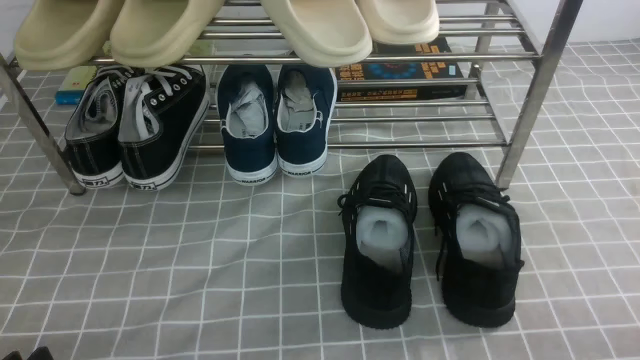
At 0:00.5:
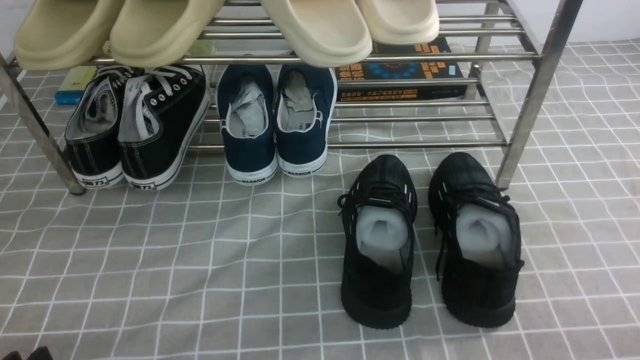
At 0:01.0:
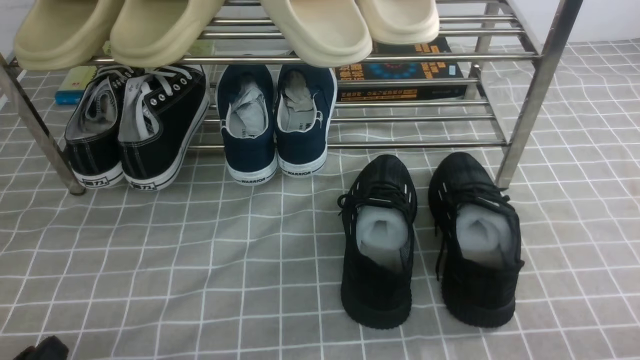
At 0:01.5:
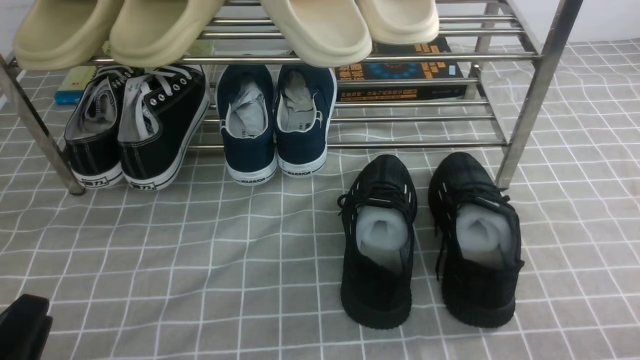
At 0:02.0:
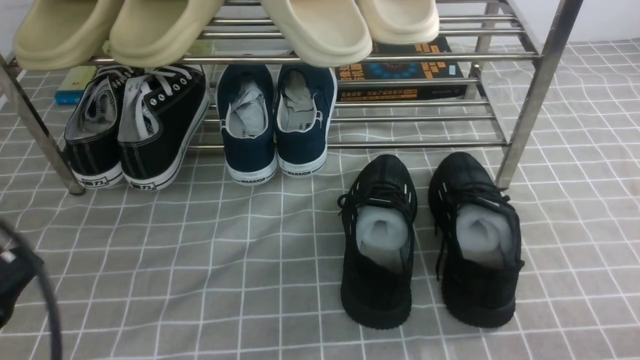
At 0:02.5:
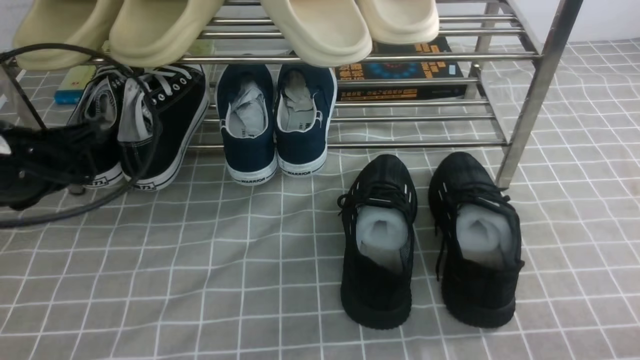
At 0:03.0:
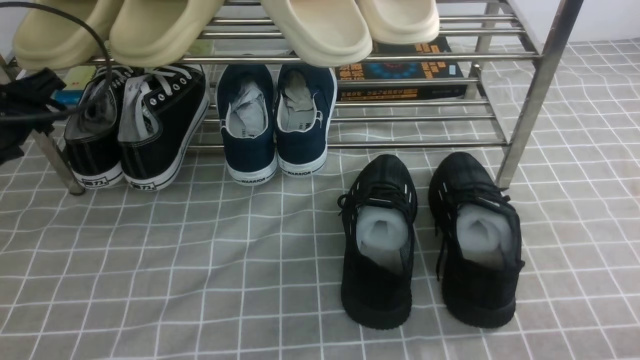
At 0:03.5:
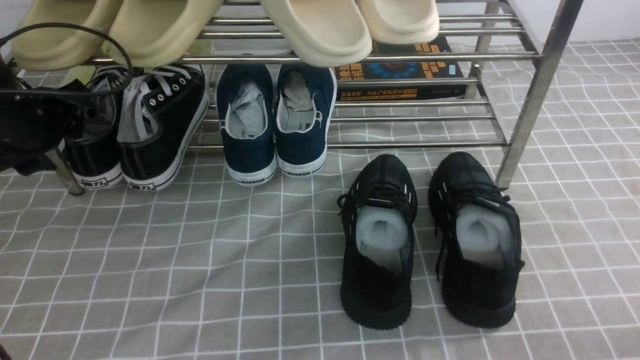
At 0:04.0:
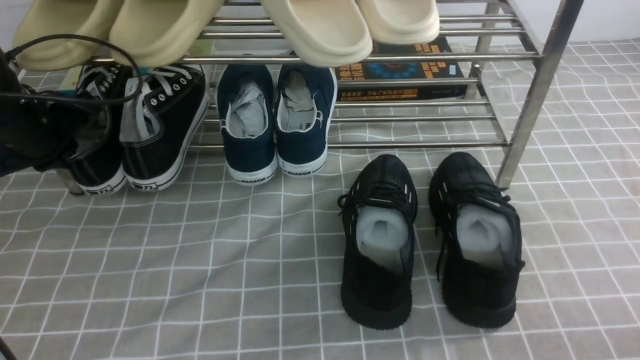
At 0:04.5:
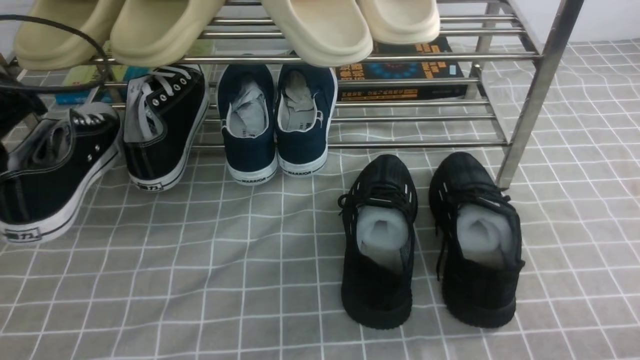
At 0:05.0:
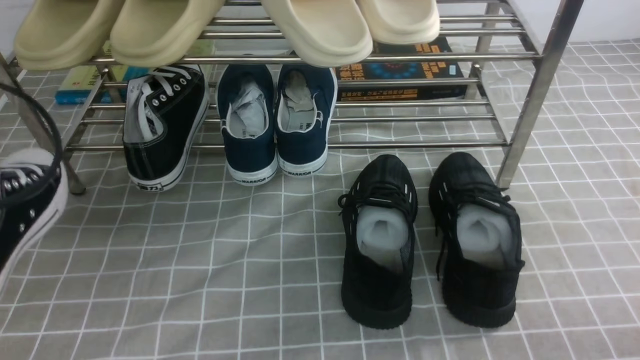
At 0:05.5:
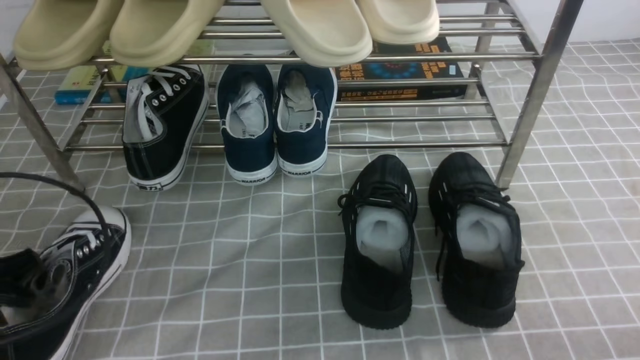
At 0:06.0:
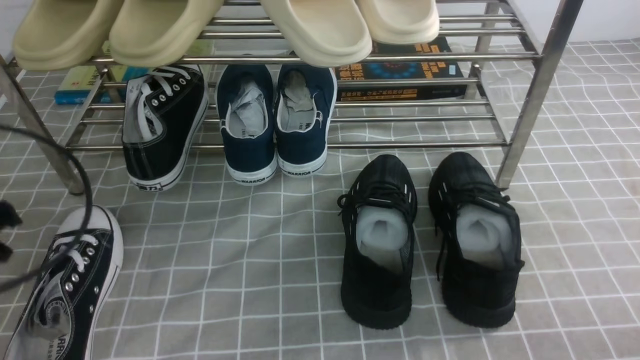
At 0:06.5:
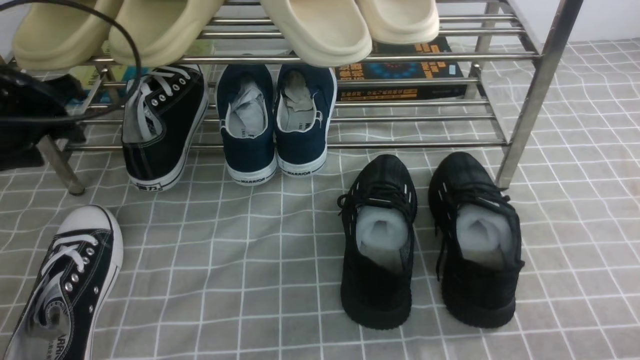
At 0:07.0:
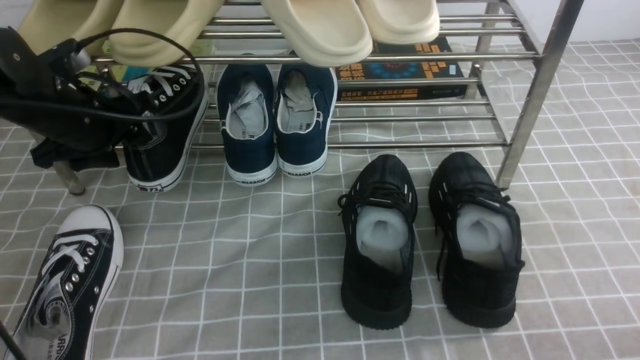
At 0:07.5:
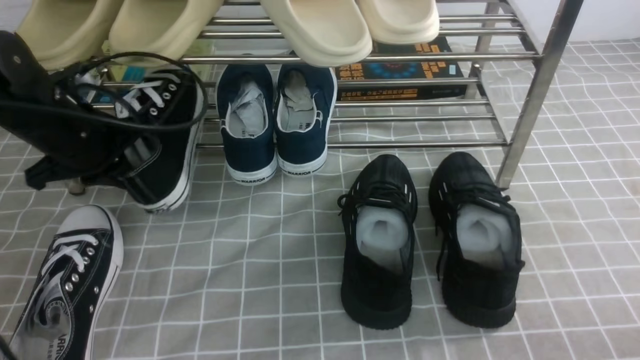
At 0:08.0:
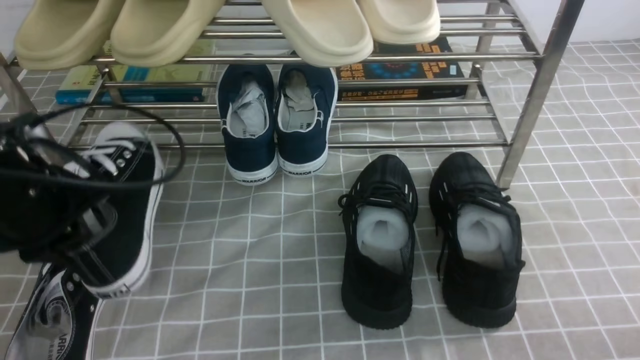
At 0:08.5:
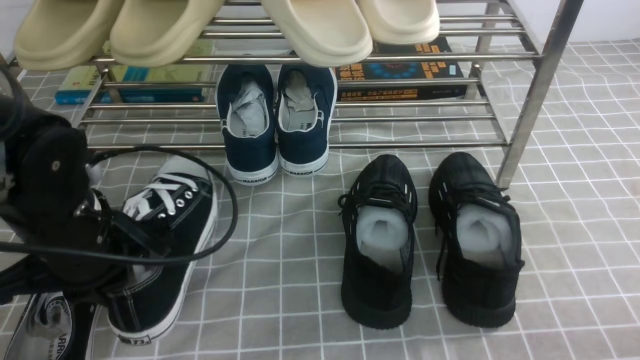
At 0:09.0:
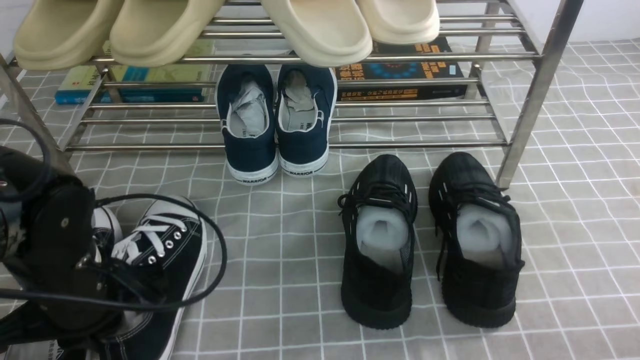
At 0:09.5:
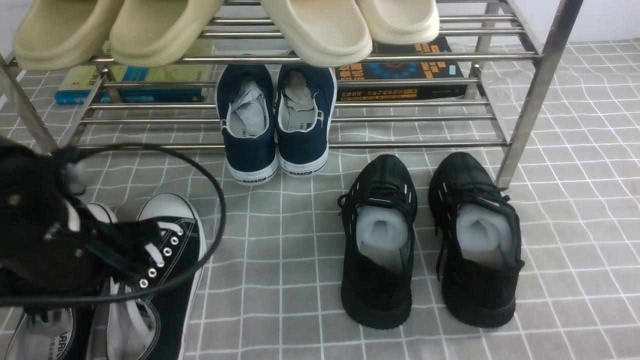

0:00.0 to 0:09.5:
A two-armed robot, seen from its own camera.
Step, 0:00.0 to 0:04.0: use the left arm to clamp a shoe on the left side of the shoe rack.
Step, 0:04.5 to 0:06.0: Use your left arm to remove the clamped shoe from the shoe rack and put it down.
Step, 0:06.5 to 0:07.0: use the left arm to clamp a shoe on the left side of the shoe rack.
Step, 0:07.5 to 0:09.0: Use your left arm to remove the clamped shoe from the shoe rack and put it down.
0:00.0 to 0:02.0: The left gripper is displaced upward by approximately 10 cm, and closes.
0:02.0 to 0:04.0: The left gripper moves forward, roughly 25 cm, and opens, then closes again.
0:04.0 to 0:05.5: The left gripper shifts some 20 cm backward.
0:05.5 to 0:07.5: The left gripper is displaced forward by about 20 cm, and opens, then closes again.
0:07.5 to 0:09.5: The left gripper shifts roughly 15 cm backward, and opens its fingers.

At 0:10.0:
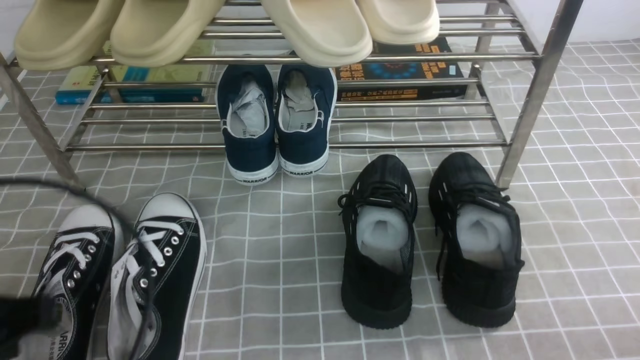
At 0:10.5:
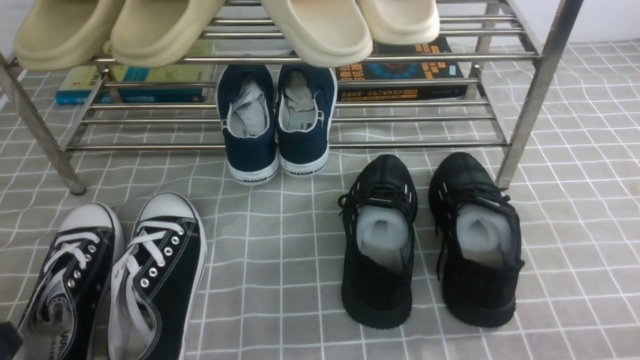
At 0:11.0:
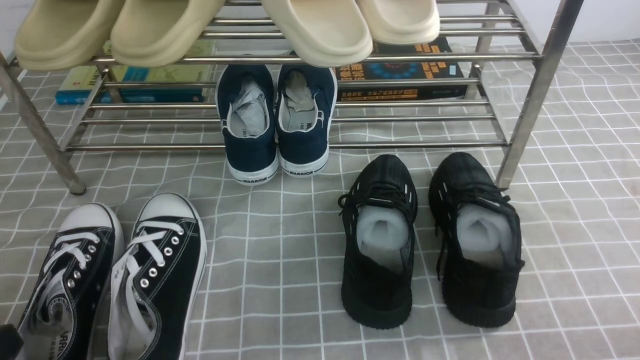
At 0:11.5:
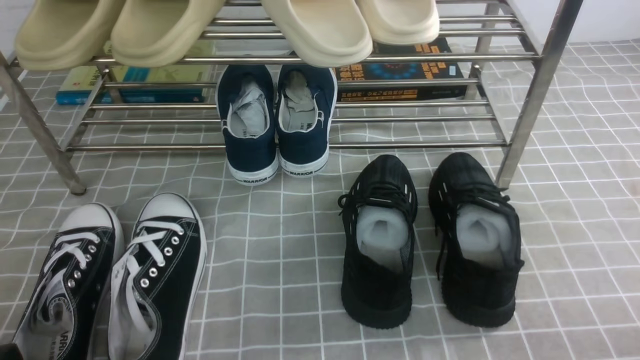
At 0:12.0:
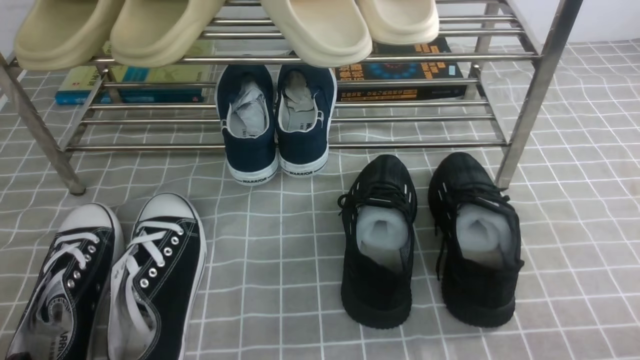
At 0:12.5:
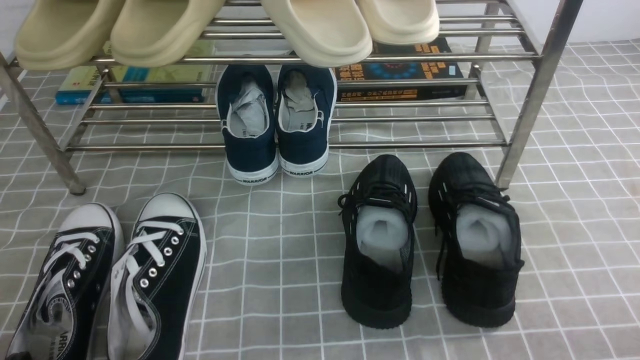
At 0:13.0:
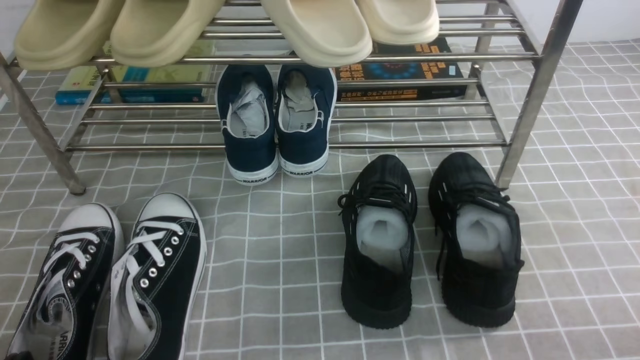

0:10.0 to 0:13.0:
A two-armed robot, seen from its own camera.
0:10.0 to 0:11.5: The left gripper goes approximately 15 cm downward and backward.
